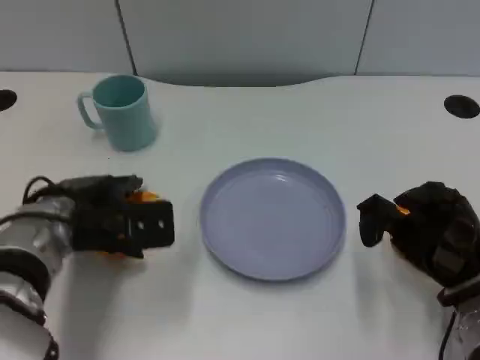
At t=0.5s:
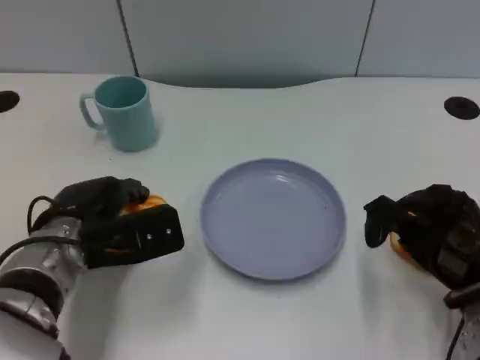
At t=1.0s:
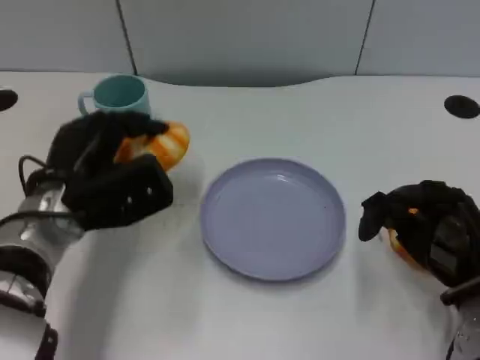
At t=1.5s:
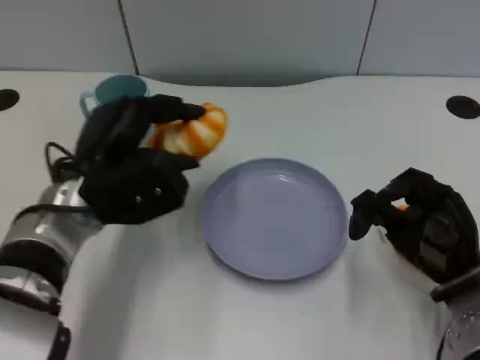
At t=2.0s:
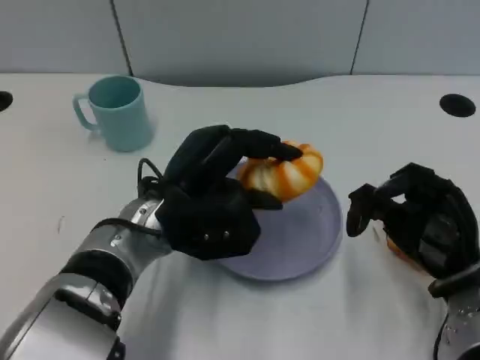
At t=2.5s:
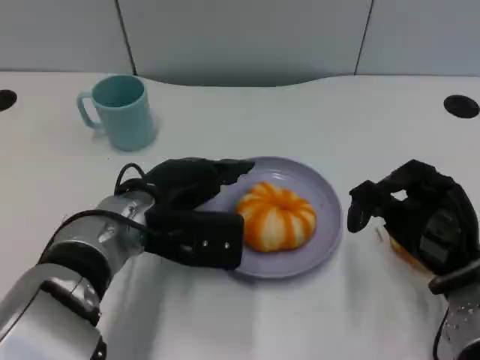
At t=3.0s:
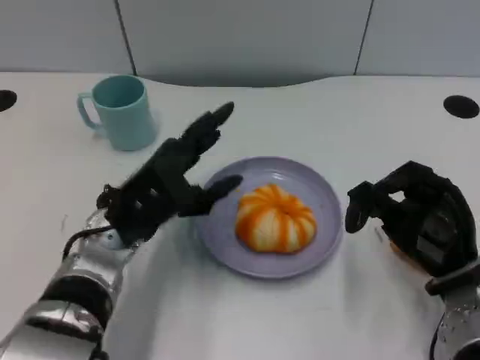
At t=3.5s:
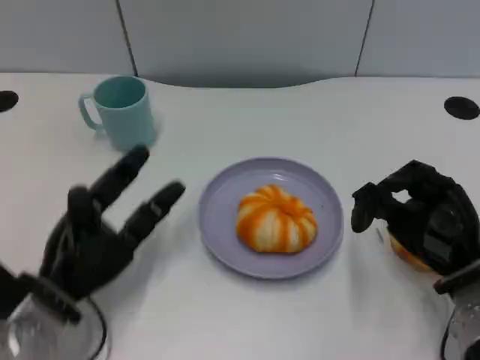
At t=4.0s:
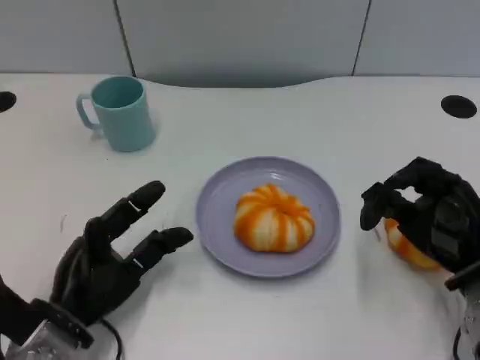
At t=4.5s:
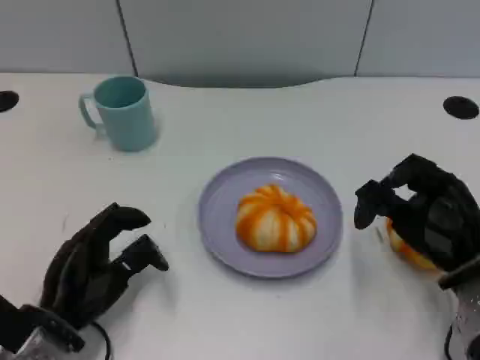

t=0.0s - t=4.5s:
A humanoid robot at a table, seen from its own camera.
Task of the whole recording: Grasp the bread from the table and place it into the plate.
t=0.0s - t=2.0s: The left hand goes roughly 10 cm to the right.
t=2.0s - t=4.5s: The left hand goes roughly 15 cm to the left, downward and backward.

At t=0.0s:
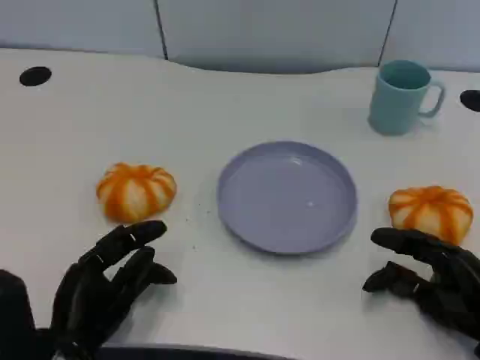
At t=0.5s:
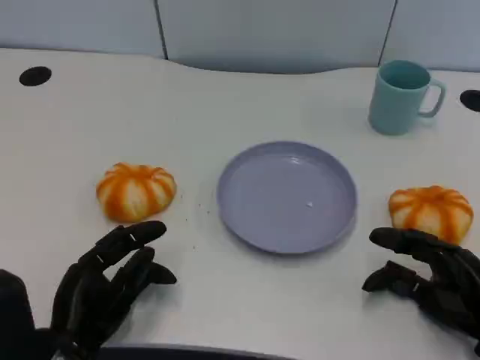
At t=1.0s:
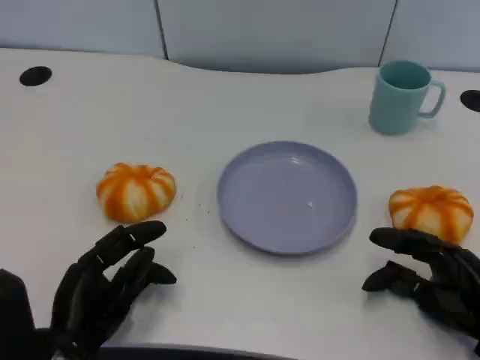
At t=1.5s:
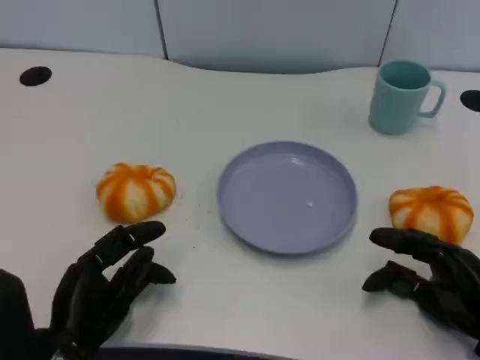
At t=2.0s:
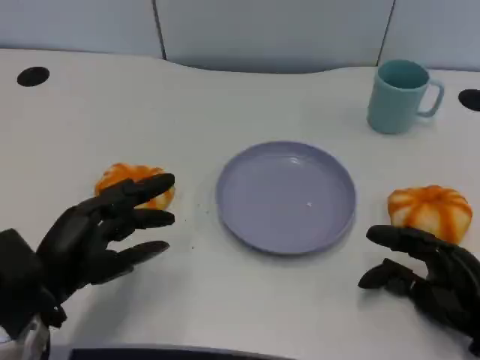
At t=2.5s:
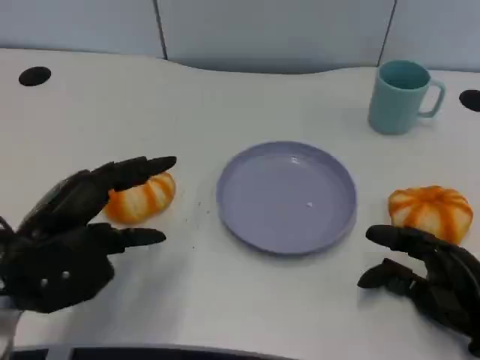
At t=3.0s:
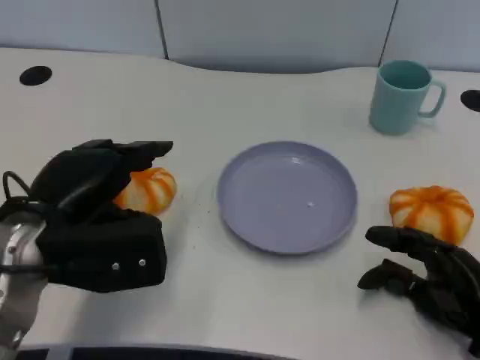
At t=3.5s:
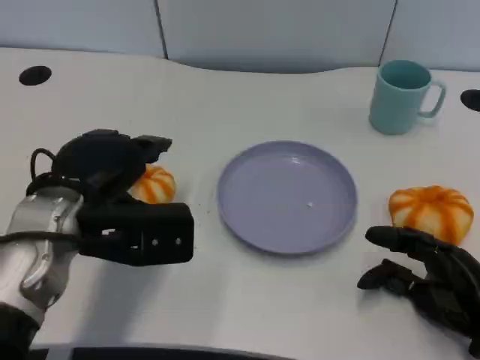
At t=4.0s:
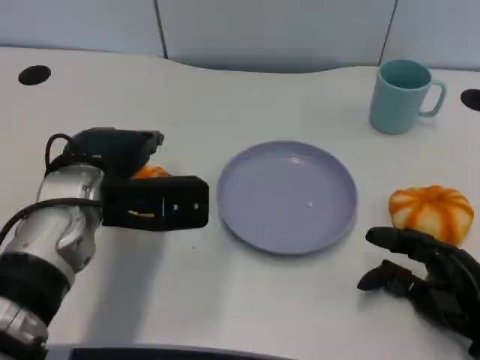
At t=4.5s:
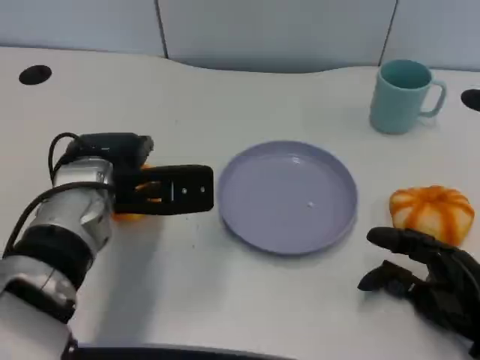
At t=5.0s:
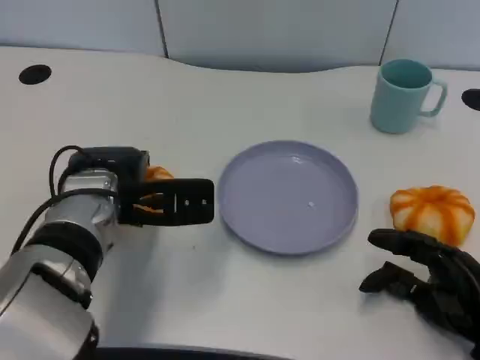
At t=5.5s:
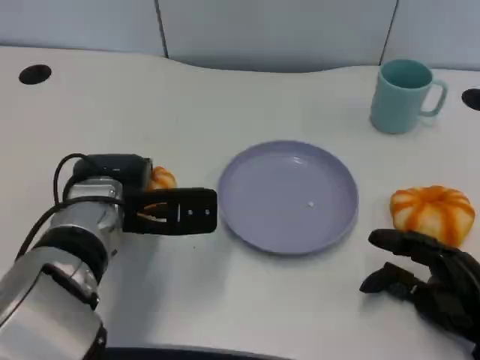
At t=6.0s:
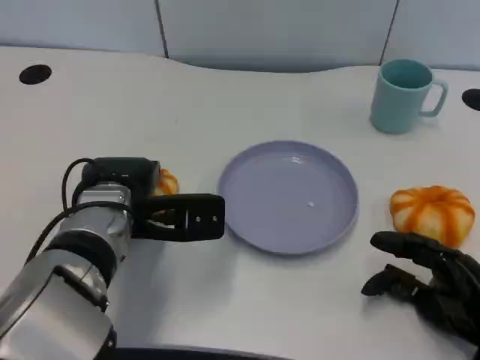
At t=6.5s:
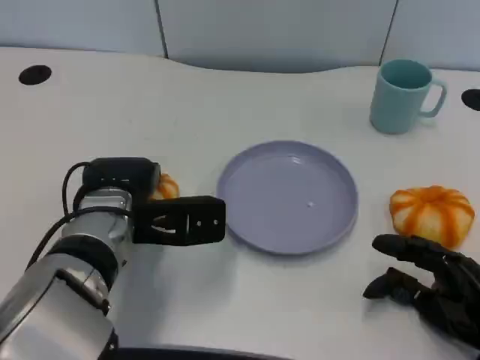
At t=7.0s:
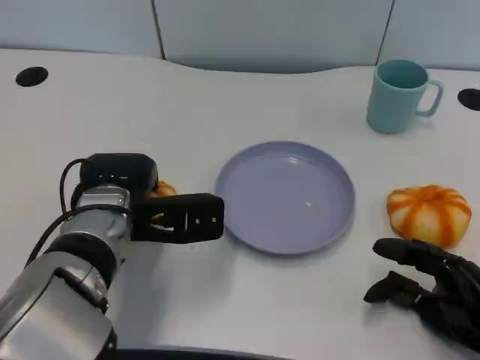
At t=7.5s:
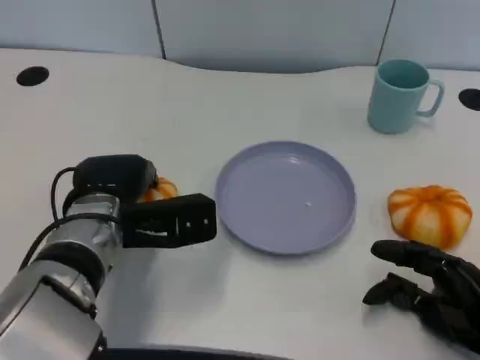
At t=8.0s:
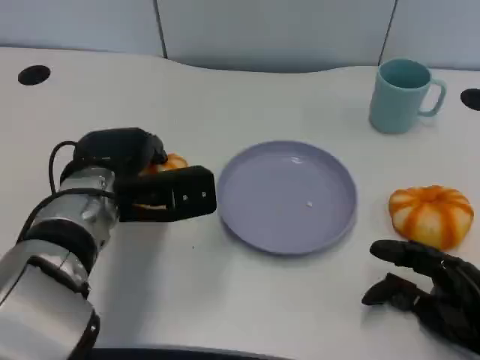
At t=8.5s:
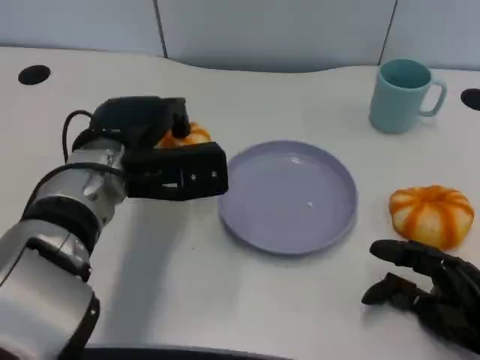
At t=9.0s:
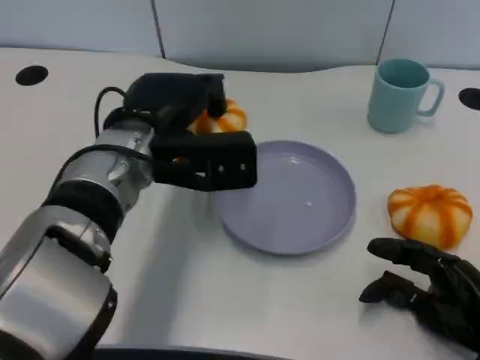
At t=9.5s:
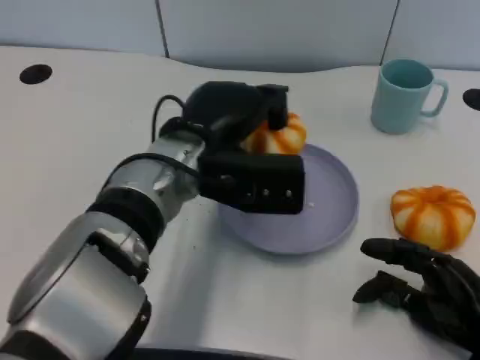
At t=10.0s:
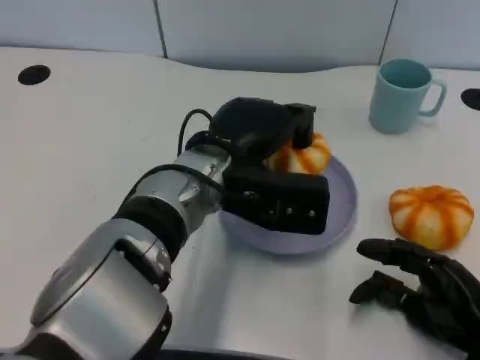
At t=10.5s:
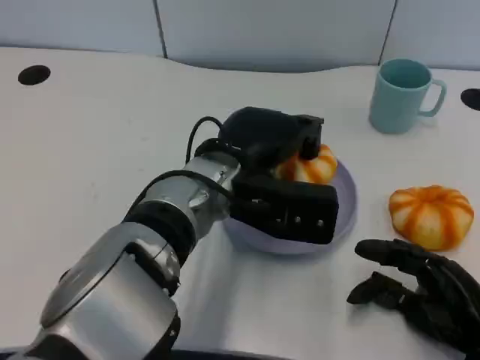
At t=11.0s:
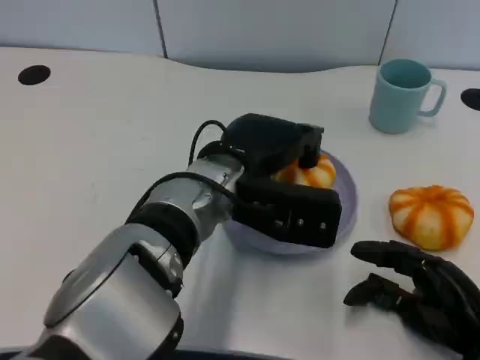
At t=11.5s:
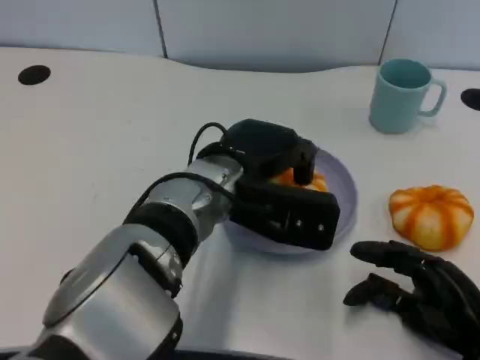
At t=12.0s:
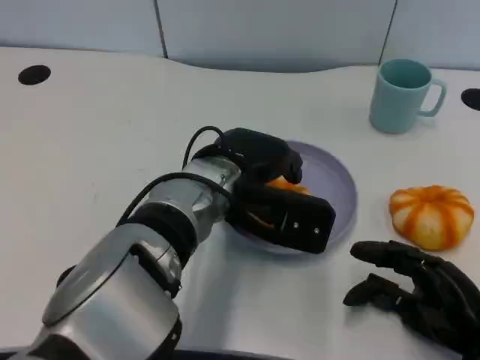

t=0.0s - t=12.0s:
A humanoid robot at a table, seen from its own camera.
Task of the whole recording: Grasp the bread from the table and place it into the plate.
t=0.0s - t=2.0s: The left hand shifts approximately 5 cm upward.
t=2.0s - t=4.0s: The left hand is displaced forward, to the right and upward by about 15 cm.
t=4.0s - t=6.0s: The left hand shifts by roughly 5 cm.
t=6.0s - t=8.0s: The hands move only a little.
t=8.0s - t=10.0s: The left hand is displaced to the right by roughly 10 cm.
t=10.0s - t=12.0s: The hands stay close to where they were, moving slightly.

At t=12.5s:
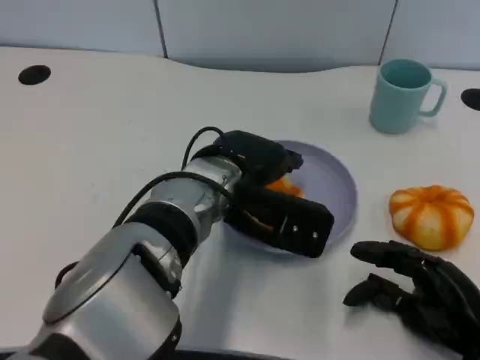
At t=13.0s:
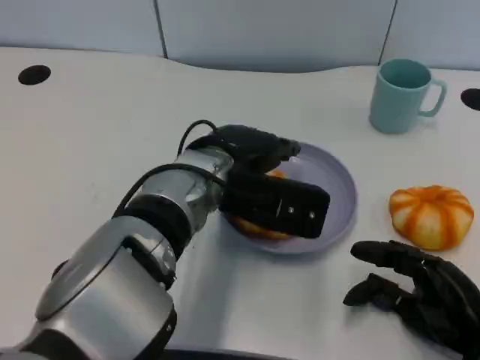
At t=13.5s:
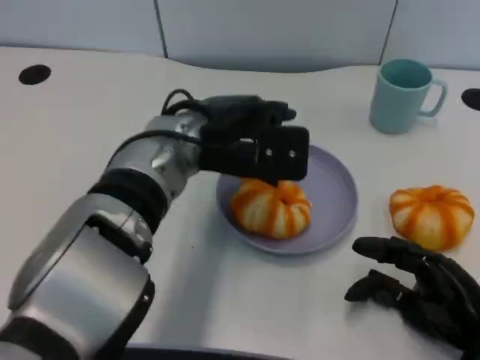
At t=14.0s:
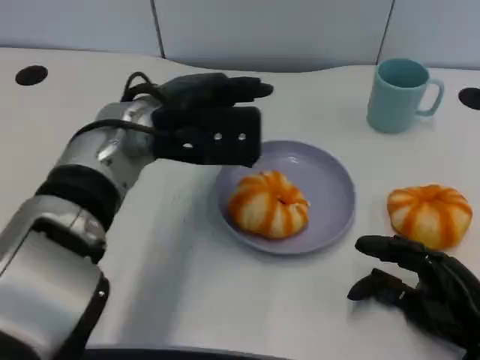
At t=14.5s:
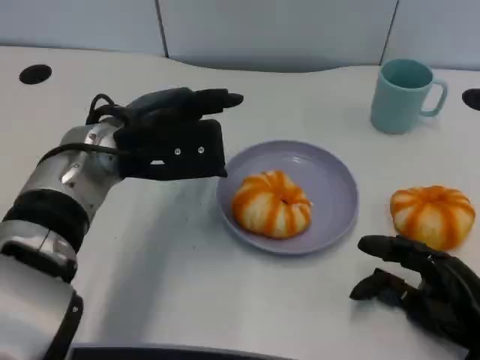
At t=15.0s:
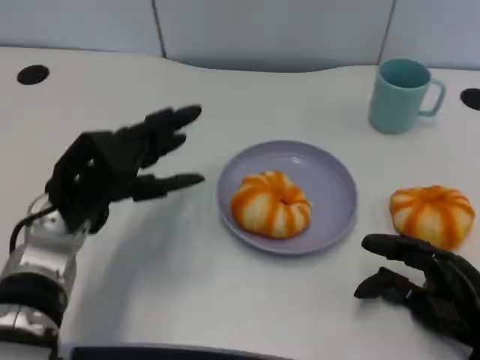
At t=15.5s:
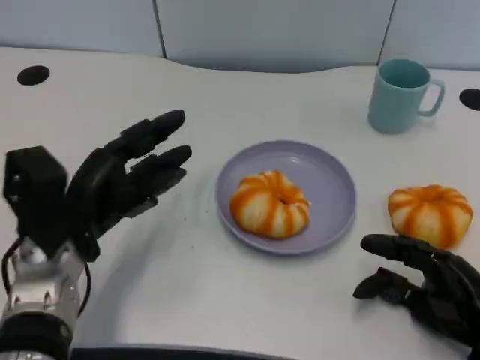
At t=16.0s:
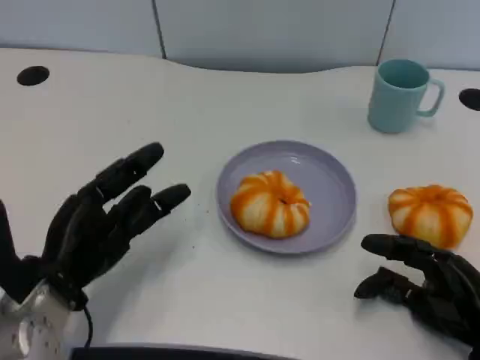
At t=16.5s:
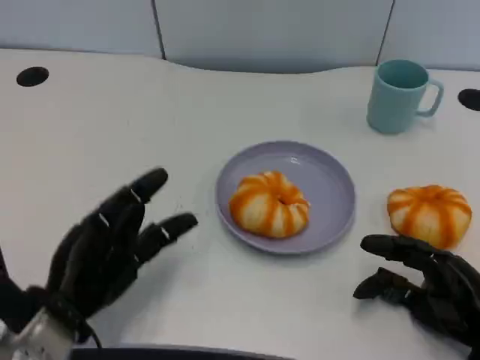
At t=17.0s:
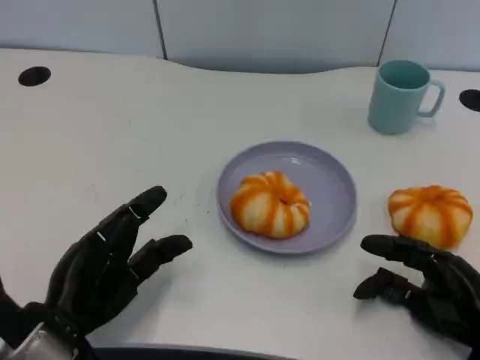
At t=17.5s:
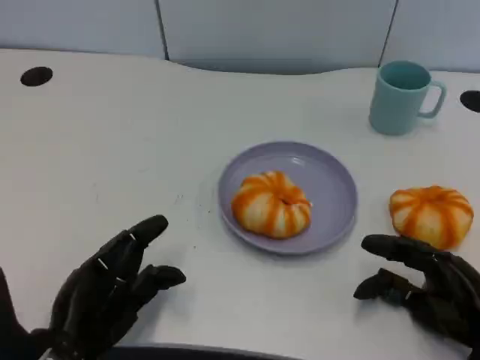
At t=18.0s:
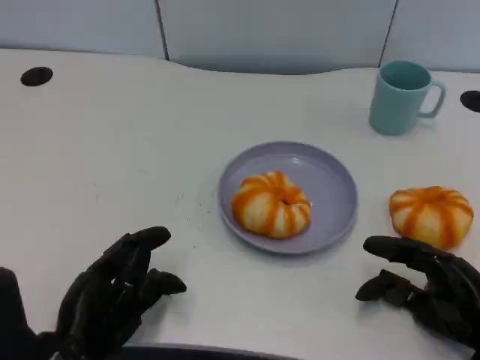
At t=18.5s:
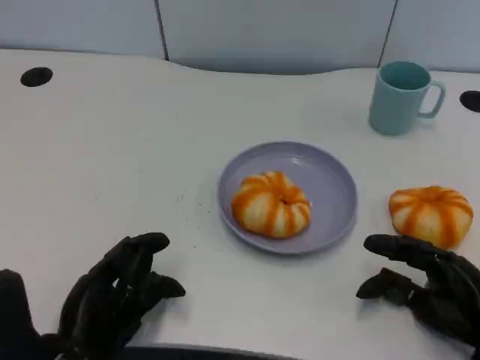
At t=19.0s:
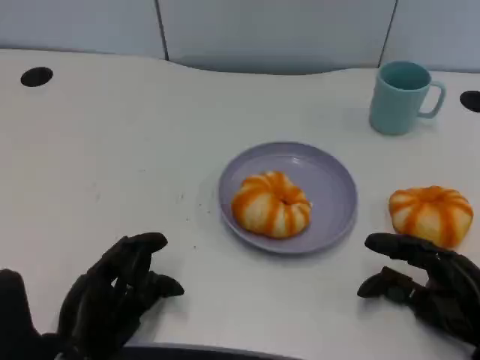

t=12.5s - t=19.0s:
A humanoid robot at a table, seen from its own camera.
Task of the whole recording: Grasp the bread from the table and place it into the plate.
t=12.5s - t=14.5s: The left hand heads to the left, covering approximately 10 cm.
t=14.5s - t=17.0s: The left hand travels backward, downward and to the left by approximately 20 cm.
t=17.0s - t=19.0s: The hands stay close to where they were, moving slightly.
